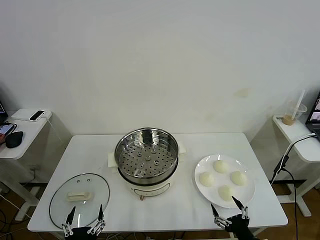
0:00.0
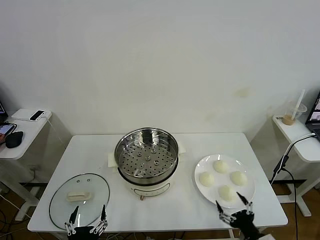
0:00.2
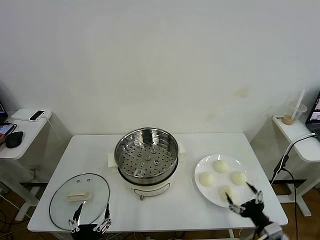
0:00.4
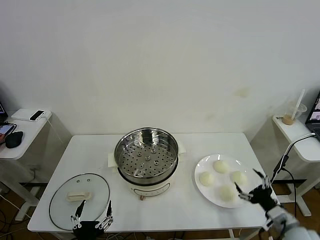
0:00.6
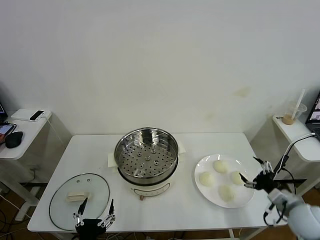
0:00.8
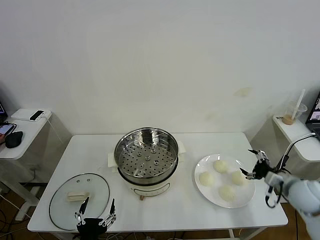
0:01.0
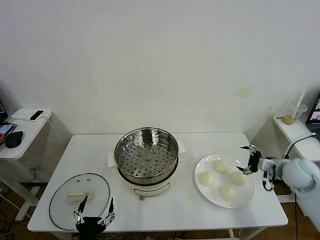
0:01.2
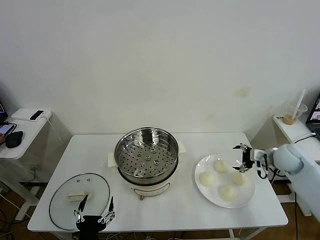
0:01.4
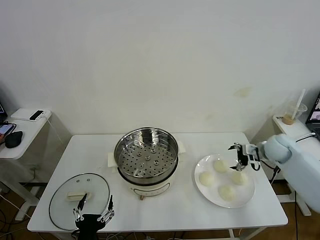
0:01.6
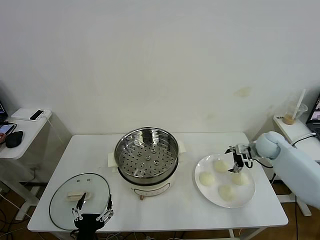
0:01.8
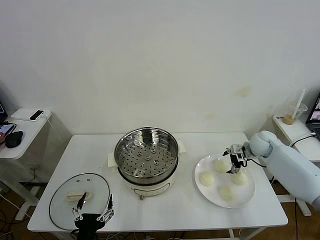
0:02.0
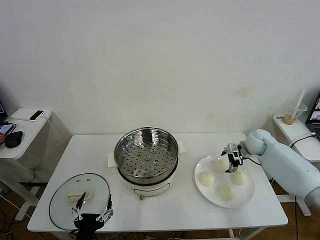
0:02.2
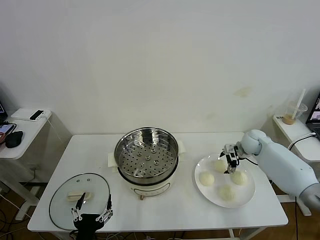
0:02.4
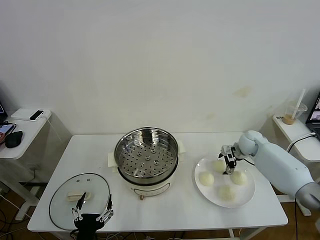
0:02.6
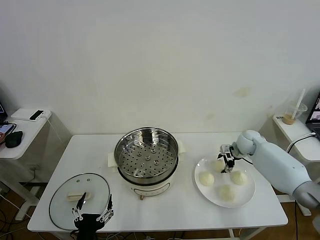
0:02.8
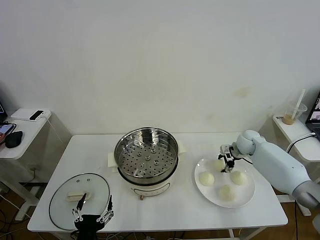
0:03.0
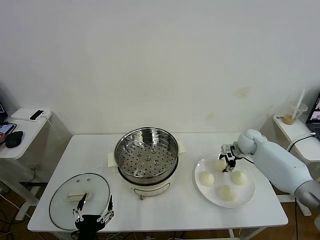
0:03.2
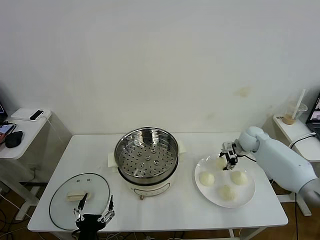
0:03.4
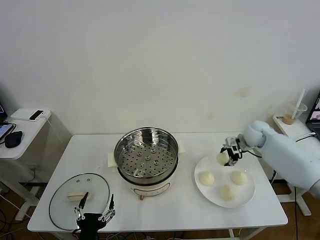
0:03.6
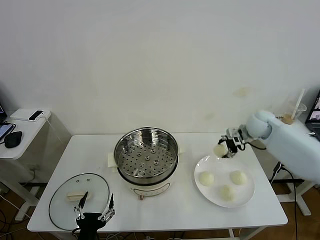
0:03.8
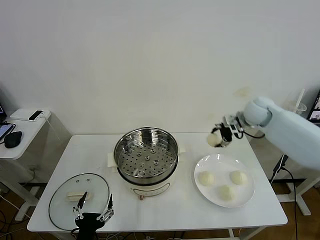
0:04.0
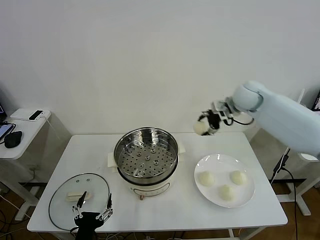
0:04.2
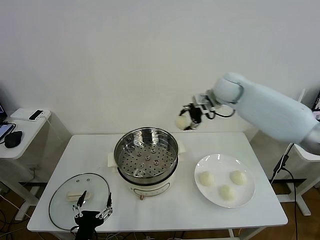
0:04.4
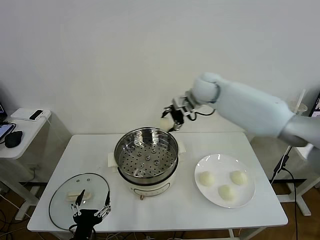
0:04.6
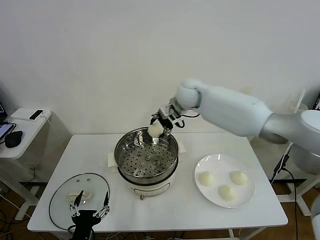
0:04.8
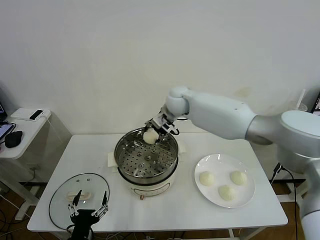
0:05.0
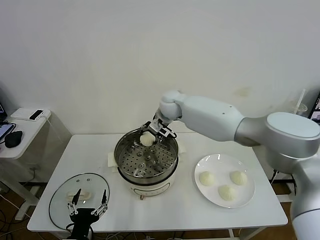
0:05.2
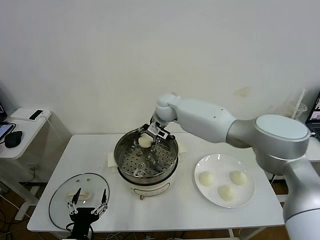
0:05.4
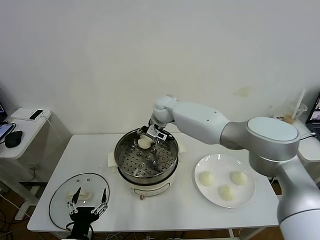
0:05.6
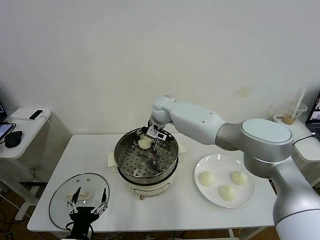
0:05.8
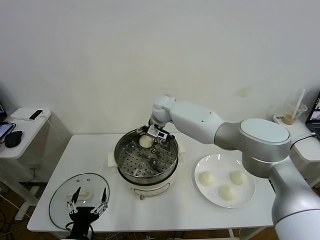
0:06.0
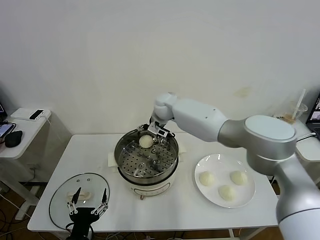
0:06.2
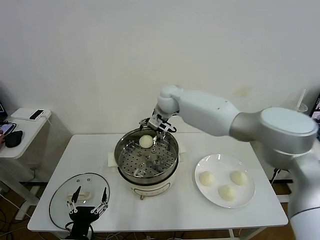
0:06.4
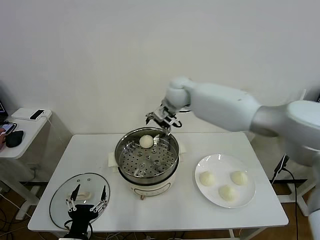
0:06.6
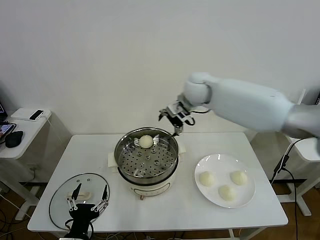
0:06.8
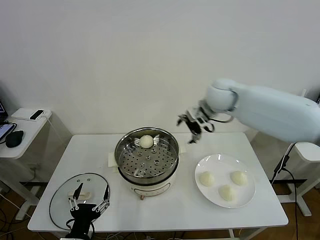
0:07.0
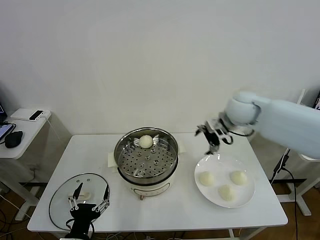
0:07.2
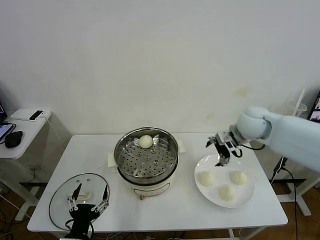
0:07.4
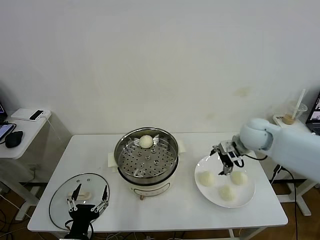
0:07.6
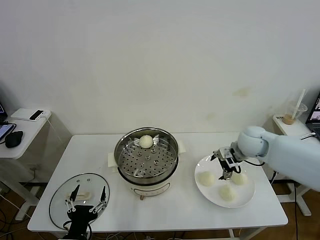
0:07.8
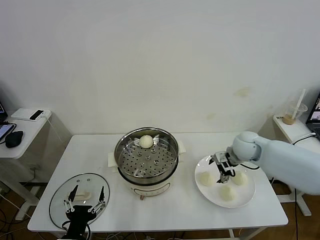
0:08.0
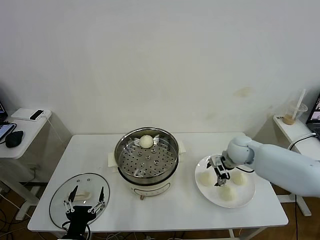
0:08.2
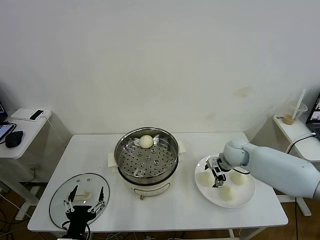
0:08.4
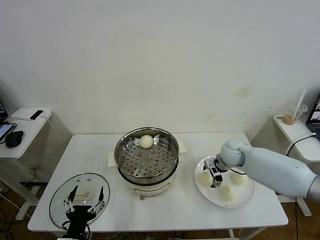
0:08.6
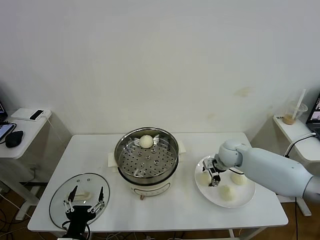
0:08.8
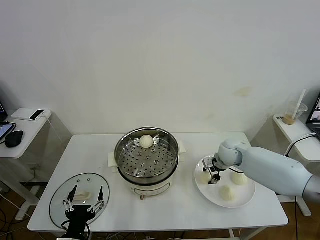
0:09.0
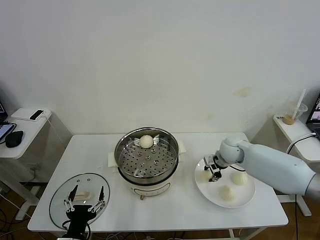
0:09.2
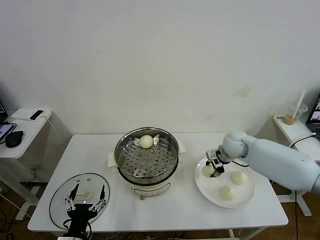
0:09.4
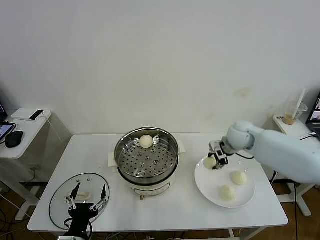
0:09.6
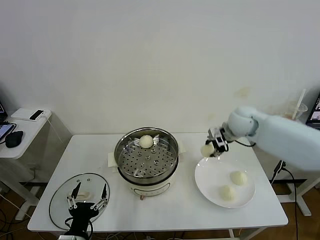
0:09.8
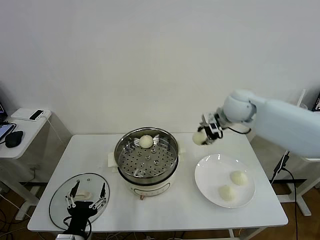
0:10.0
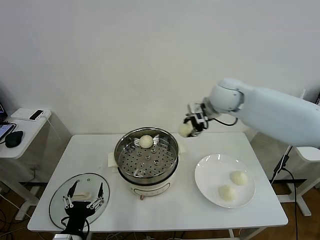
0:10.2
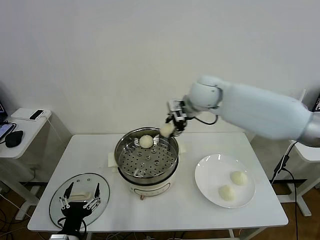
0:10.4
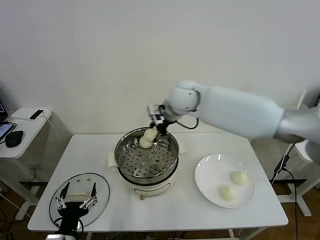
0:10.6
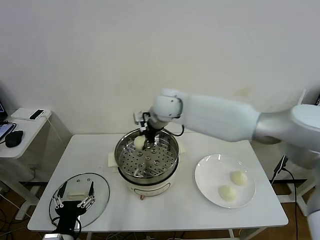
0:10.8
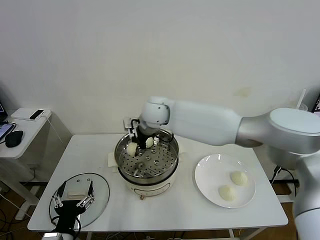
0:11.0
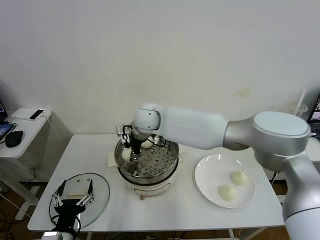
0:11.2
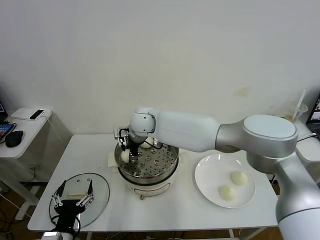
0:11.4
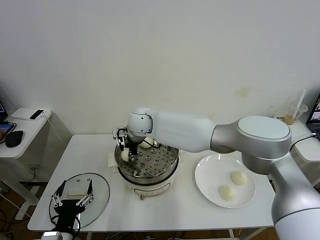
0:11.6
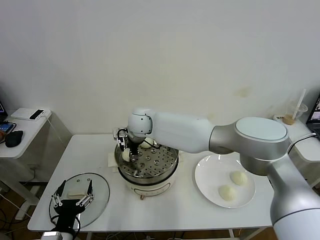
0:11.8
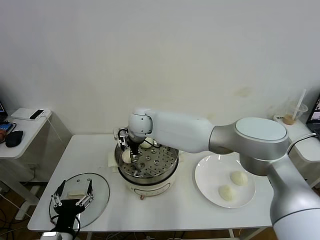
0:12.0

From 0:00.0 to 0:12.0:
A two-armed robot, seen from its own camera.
Task of the whole recording: take steamed baozi put them in steamer then cover it.
Step, from 0:00.0 to 0:03.0: Grasp the baozi in the plate with right gripper.
Step, from 0:03.4 to 0:06.2: Place the baozi on the steamer with right gripper.
Step, from 0:06.4 to 0:08.8: Grasp the baozi in the plate with right gripper.
From 0:01.6 to 0:03.0: The right gripper shifts some 5 cm forward, and closes up.
From 0:03.0 to 0:04.4: The right gripper travels upward and to the left by roughly 30 cm.
From 0:04.4 to 0:06.0: The right gripper is displaced to the left and downward by roughly 20 cm, and opens.
From 0:06.0 to 0:07.6: The right gripper travels to the right and backward by roughly 30 cm.
From 0:07.6 to 0:09.0: The right gripper goes roughly 10 cm downward, and closes up.
From 0:09.0 to 0:10.4: The right gripper travels upward and to the left by some 30 cm.
From 0:10.4 to 0:12.0: The right gripper goes roughly 20 cm to the left and downward, and opens.

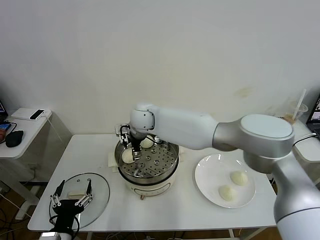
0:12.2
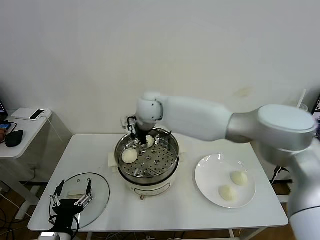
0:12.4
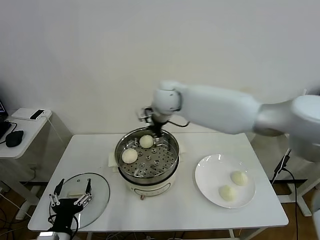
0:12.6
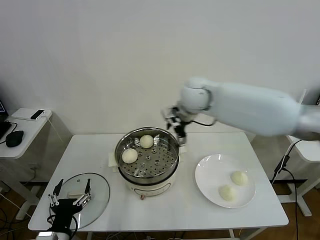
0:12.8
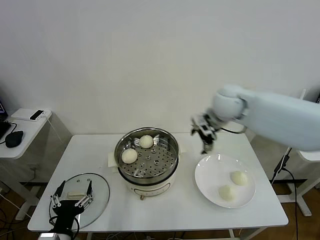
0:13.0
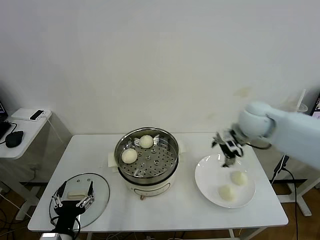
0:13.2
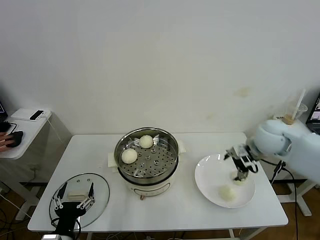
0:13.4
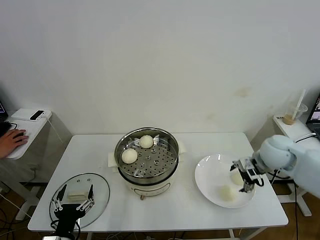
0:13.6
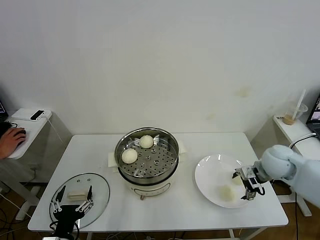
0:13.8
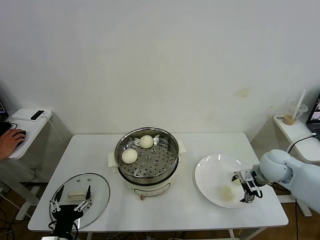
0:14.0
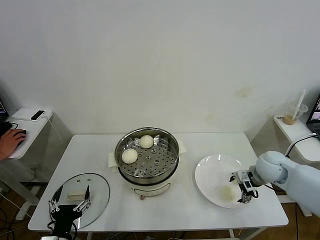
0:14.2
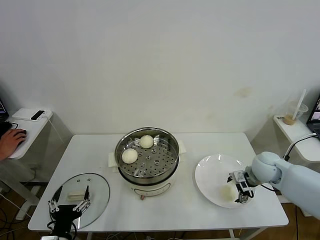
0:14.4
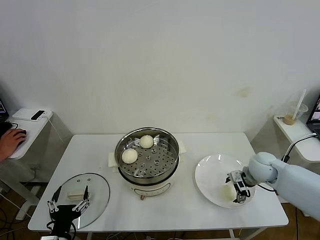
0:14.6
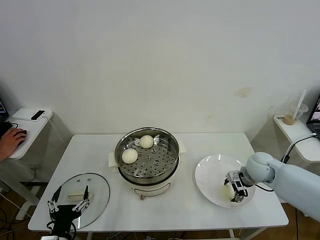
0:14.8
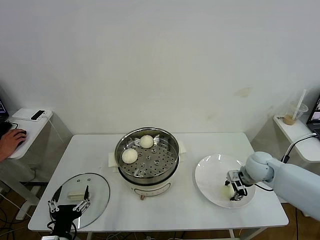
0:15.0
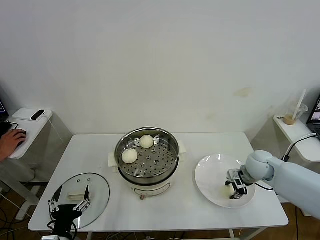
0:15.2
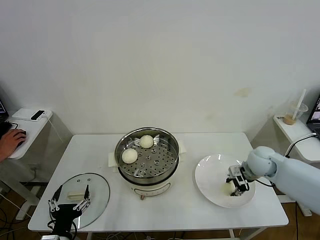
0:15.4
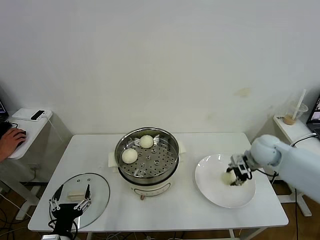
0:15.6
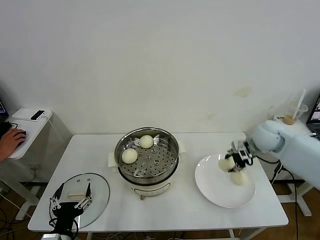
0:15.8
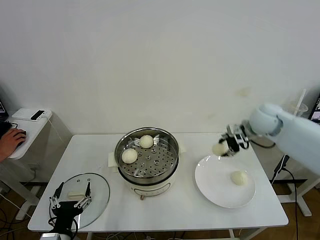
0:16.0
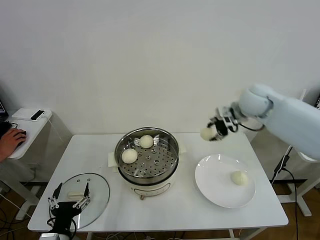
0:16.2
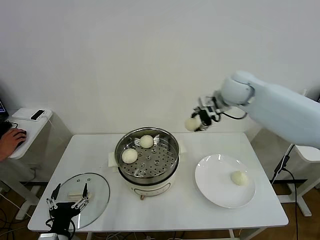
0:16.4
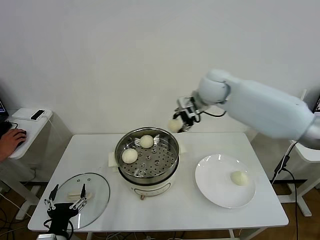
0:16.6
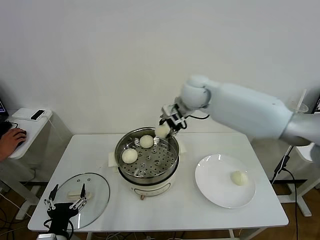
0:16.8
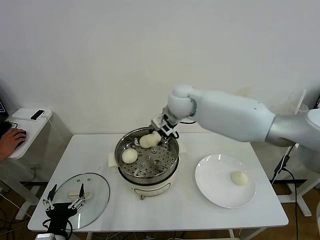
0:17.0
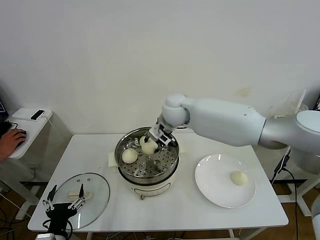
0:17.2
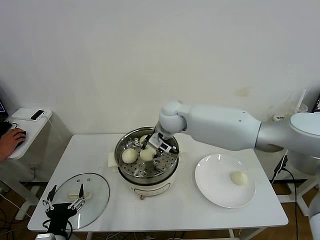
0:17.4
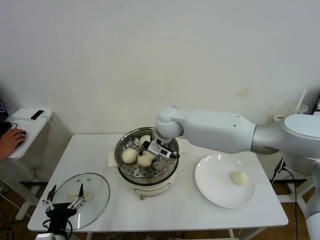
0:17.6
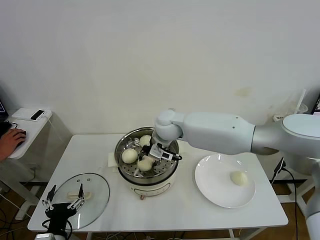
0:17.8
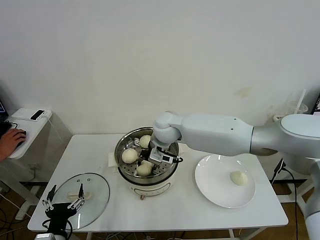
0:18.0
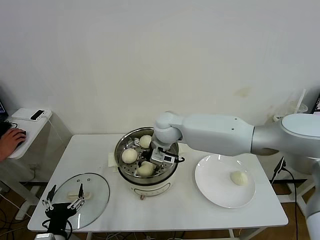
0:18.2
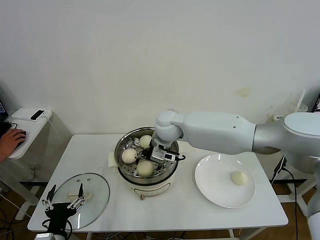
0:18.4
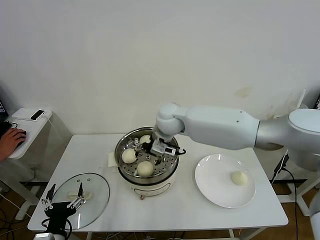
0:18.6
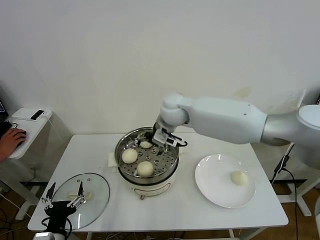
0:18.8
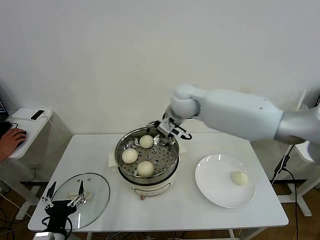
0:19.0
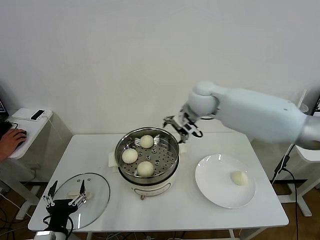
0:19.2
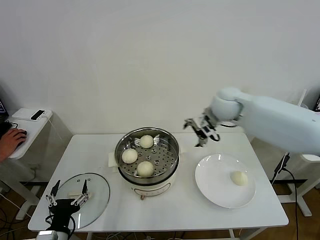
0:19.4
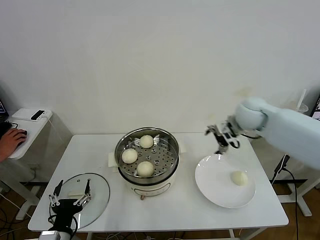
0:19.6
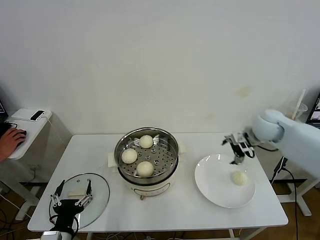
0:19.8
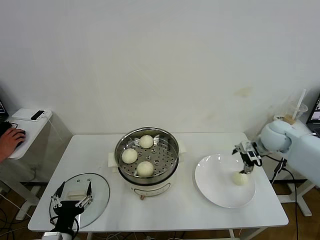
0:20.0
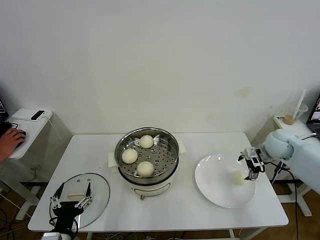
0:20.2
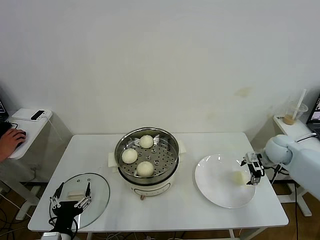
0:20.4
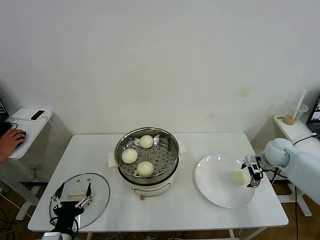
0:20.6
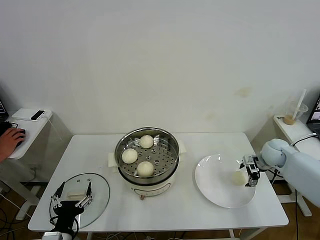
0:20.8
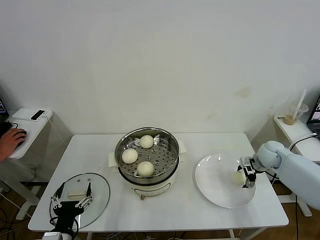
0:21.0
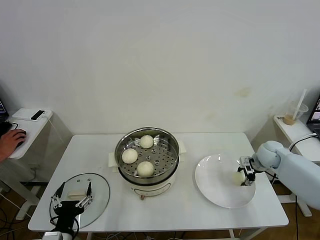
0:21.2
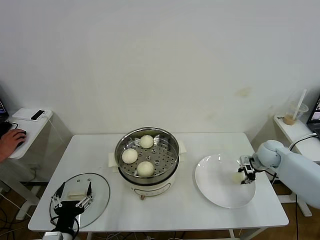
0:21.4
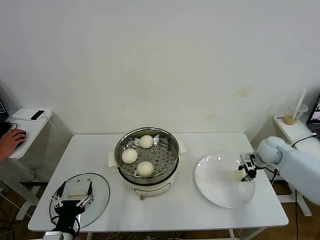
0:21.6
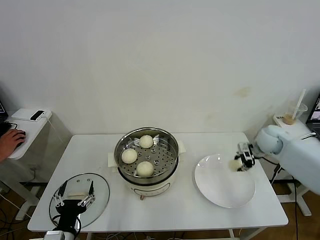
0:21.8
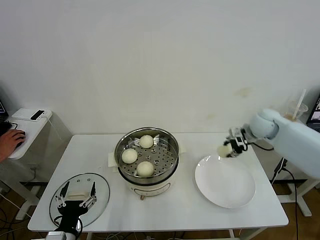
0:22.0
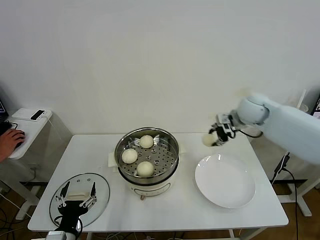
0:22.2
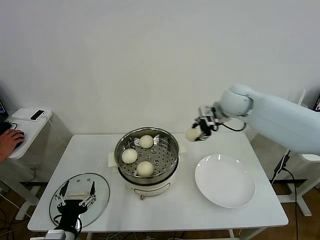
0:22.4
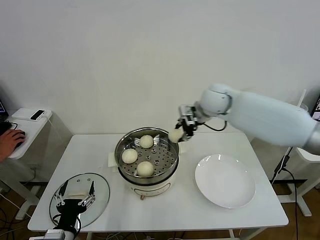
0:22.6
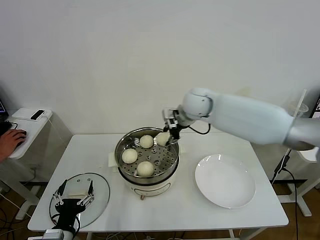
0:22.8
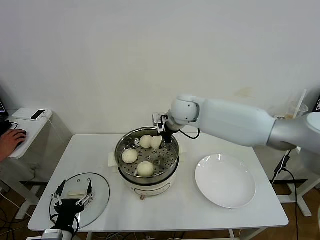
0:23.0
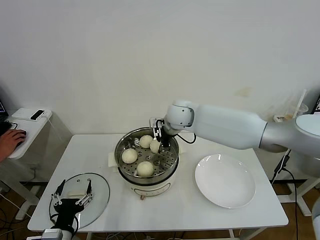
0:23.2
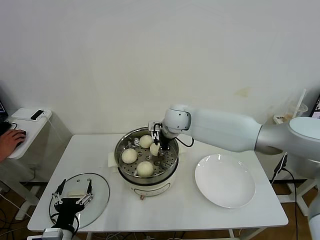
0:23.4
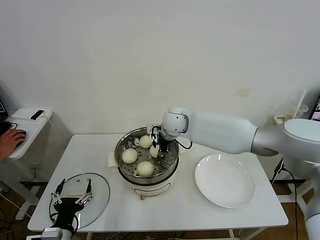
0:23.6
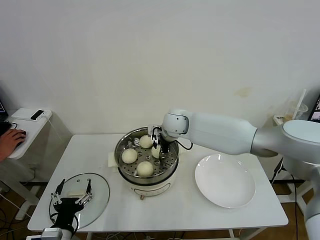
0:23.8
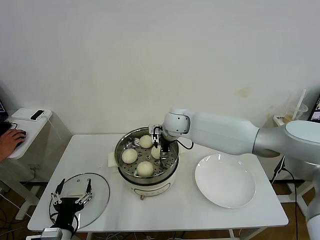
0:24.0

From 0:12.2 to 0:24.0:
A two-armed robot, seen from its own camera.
Task of the whole recording: take steamed baozi put them in steamer then cover it.
Step, from 0:12.2 to 0:15.2: Grasp the baozi in the plate with right gripper.
Step, from 0:15.4 to 0:18.4: Place the baozi on the steamer with right gripper.
Step, from 0:18.6 to 0:21.2: Grasp the baozi in the plate with right gripper.
From 0:12.2 to 0:13.6: The right gripper heads to the right, covering approximately 40 cm.
From 0:13.6 to 0:15.2: The right gripper travels downward by some 5 cm, and closes up.
From 0:15.2 to 0:16.6: The right gripper goes roughly 35 cm upward, to the left and forward.
From 0:16.6 to 0:18.2: The right gripper is displaced downward, to the left and backward by some 15 cm, and opens its fingers.
From 0:18.2 to 0:19.6: The right gripper travels to the right by about 25 cm, and opens.
From 0:19.6 to 0:21.0: The right gripper heads downward and to the right, covering approximately 20 cm.
From 0:21.0 to 0:22.6: The right gripper heads to the left and upward, covering approximately 35 cm, and closes.
From 0:22.6 to 0:24.0: The right gripper heads to the left and downward, covering roughly 15 cm, and opens up.
